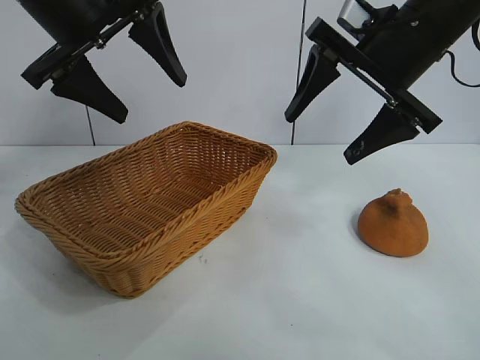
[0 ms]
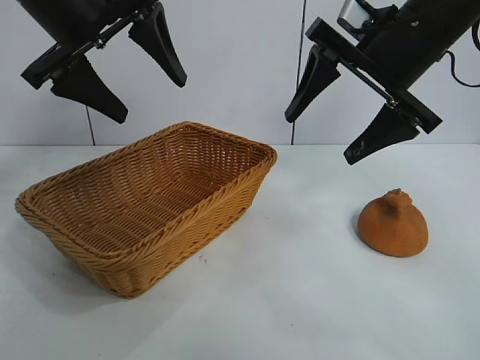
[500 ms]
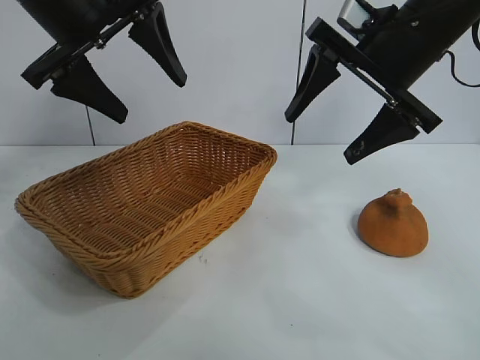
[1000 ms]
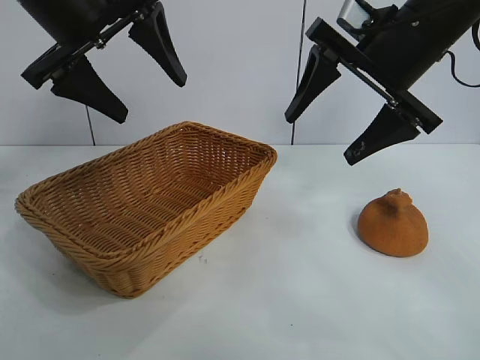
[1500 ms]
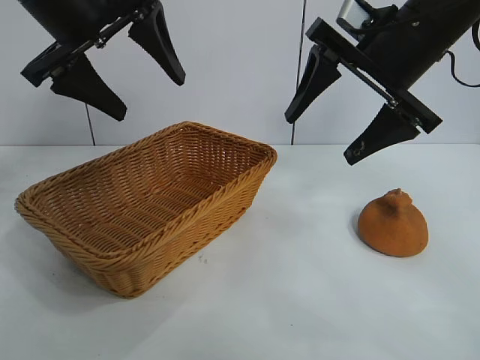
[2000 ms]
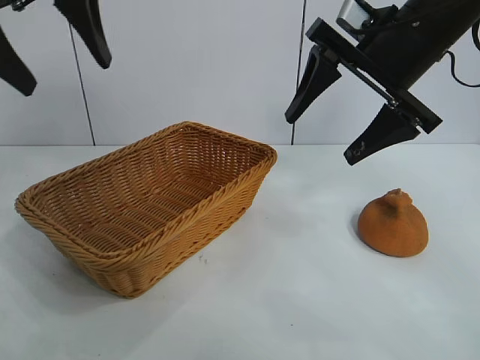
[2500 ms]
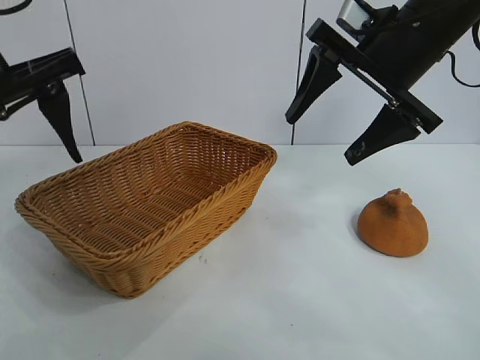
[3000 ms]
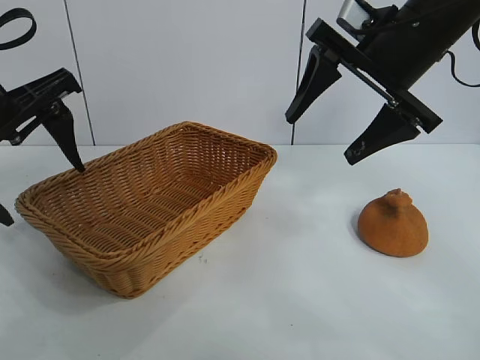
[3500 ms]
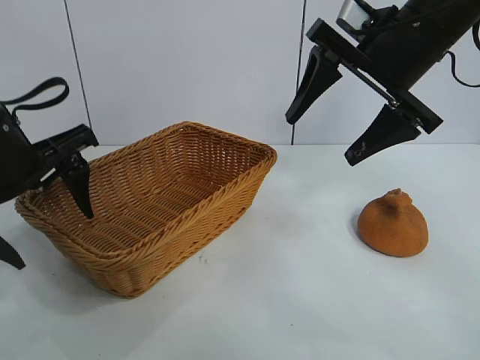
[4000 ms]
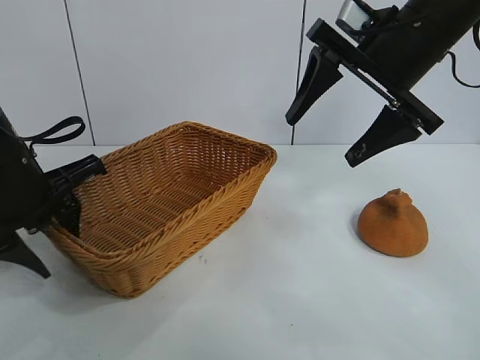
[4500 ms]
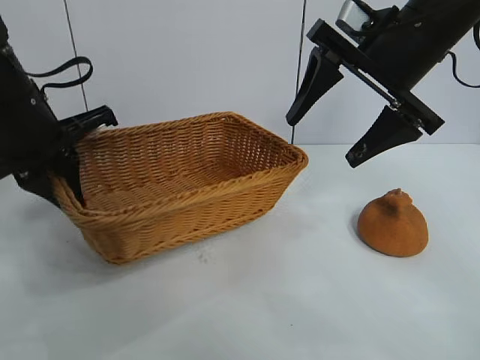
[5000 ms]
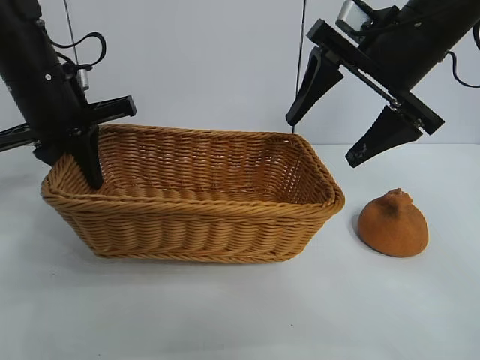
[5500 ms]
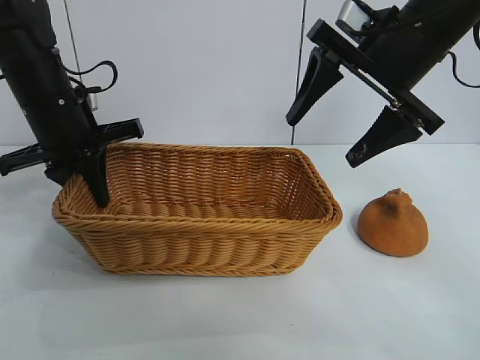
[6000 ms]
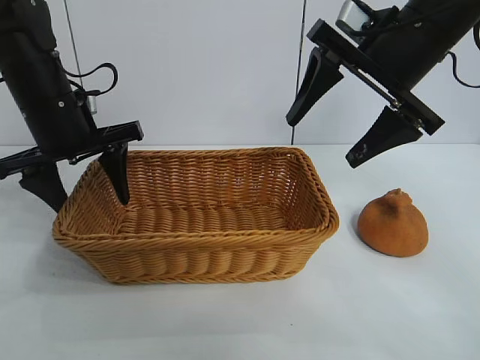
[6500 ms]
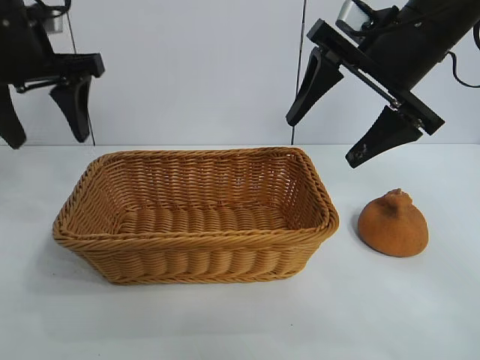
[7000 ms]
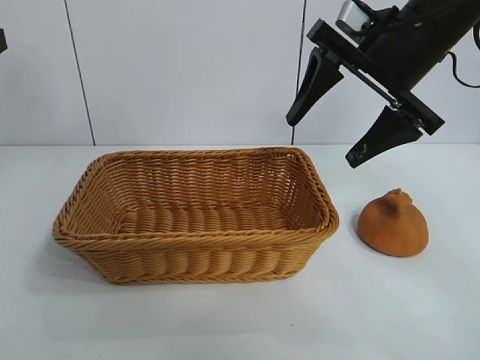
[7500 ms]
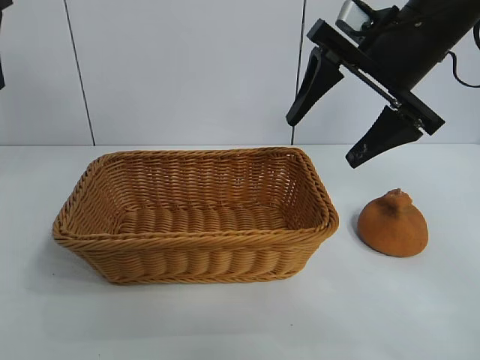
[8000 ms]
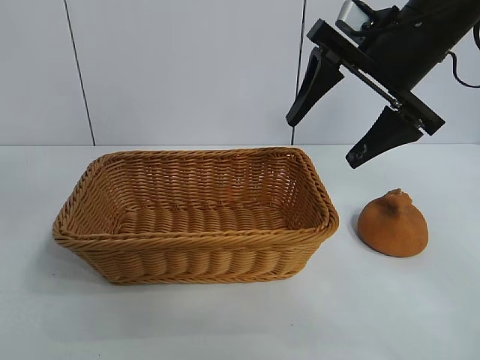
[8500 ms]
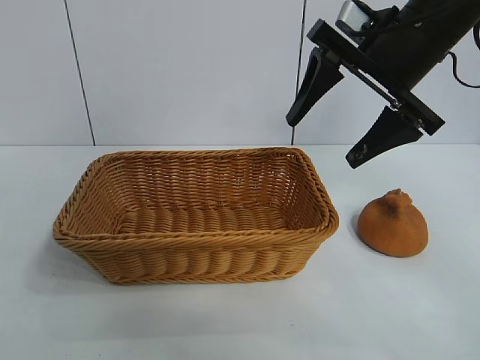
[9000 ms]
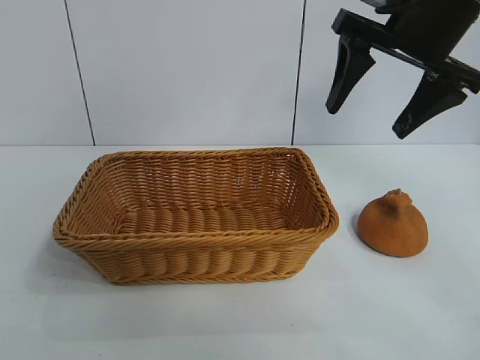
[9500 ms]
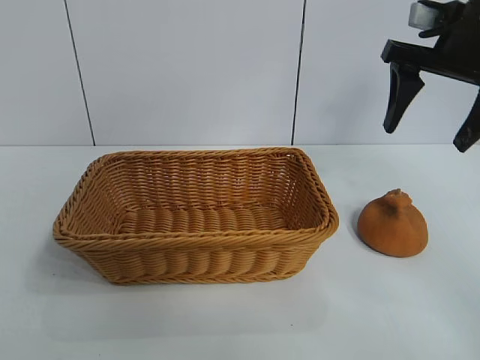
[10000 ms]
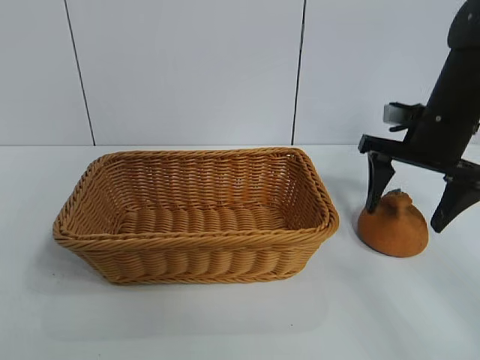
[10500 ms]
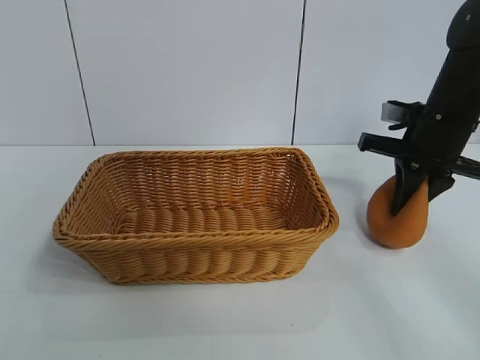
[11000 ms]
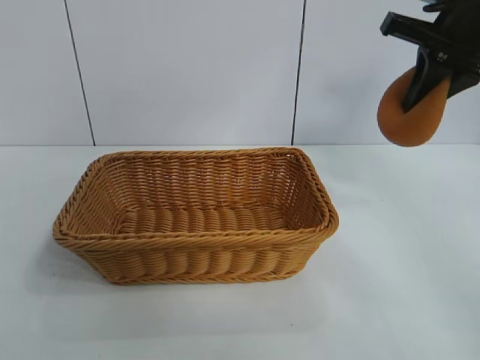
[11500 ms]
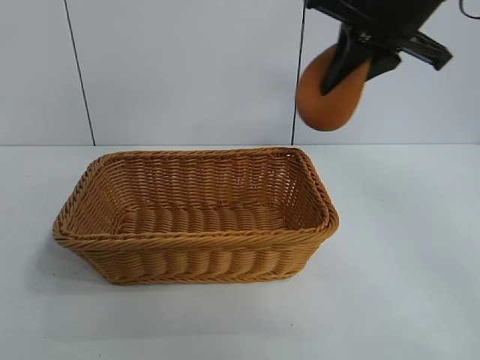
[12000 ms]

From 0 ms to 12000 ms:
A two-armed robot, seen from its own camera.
Task of the whole recording: pick up the orange and put it into the basket.
Step, from 1500 ms to 4500 ms: Grasp the basket with left gripper.
Step, from 5000 ms to 6500 ms: Place the basket in the center of view with left gripper.
Step, from 7000 ms to 10500 ms: Grasp the orange with right gripper.
